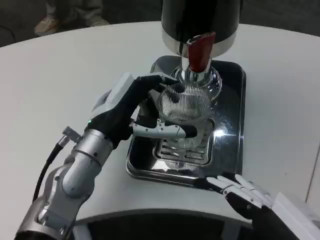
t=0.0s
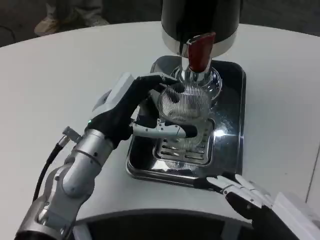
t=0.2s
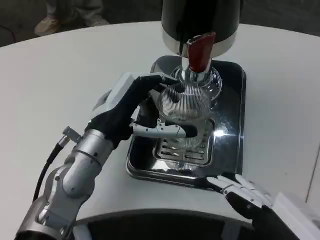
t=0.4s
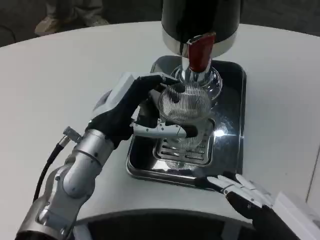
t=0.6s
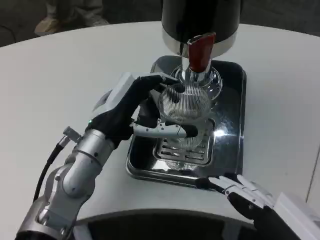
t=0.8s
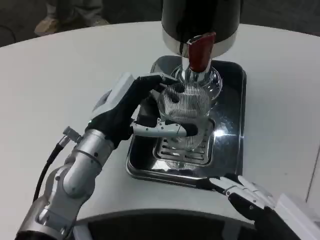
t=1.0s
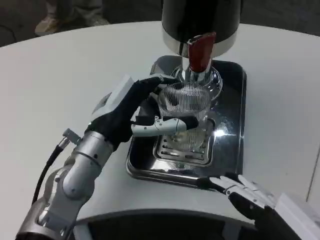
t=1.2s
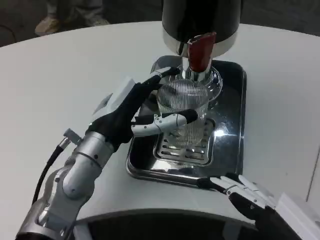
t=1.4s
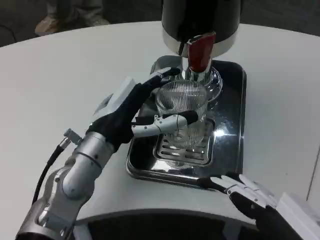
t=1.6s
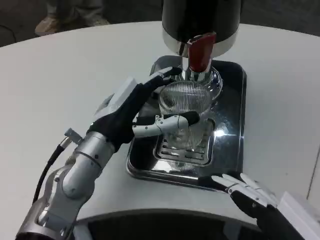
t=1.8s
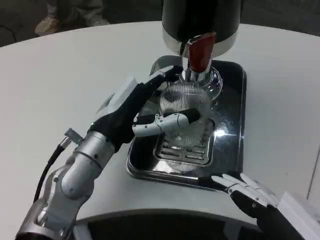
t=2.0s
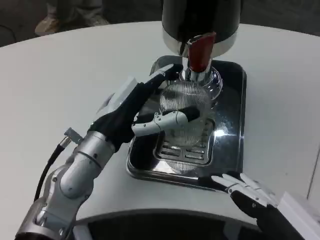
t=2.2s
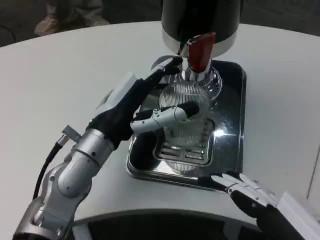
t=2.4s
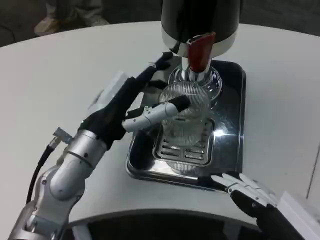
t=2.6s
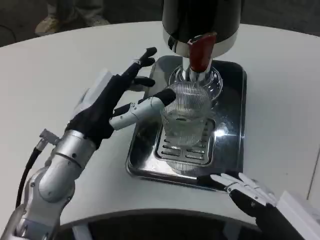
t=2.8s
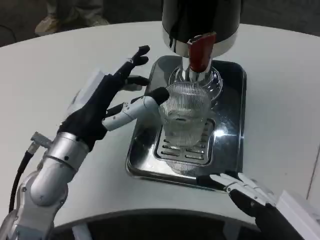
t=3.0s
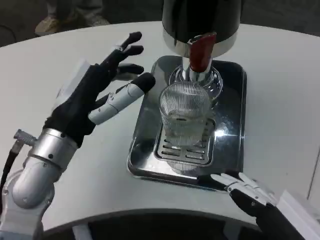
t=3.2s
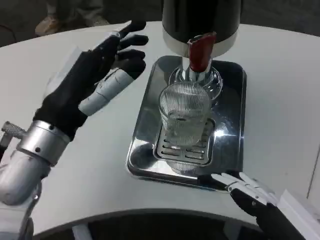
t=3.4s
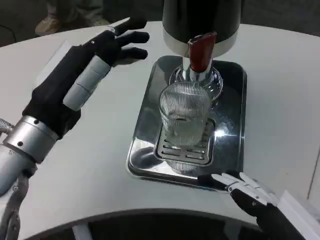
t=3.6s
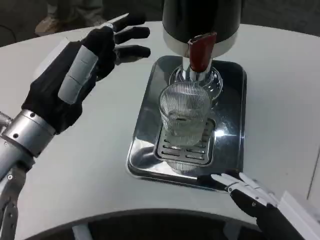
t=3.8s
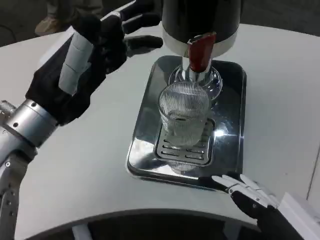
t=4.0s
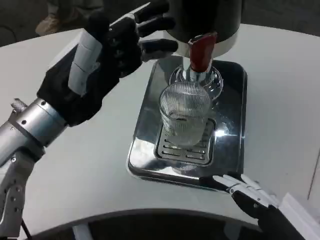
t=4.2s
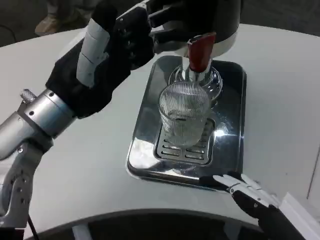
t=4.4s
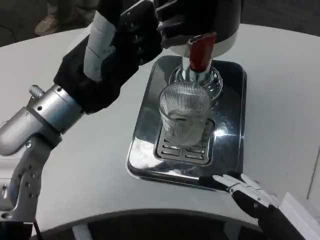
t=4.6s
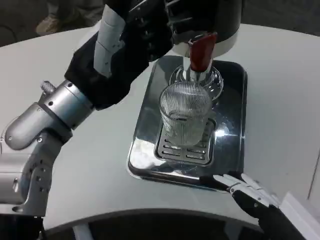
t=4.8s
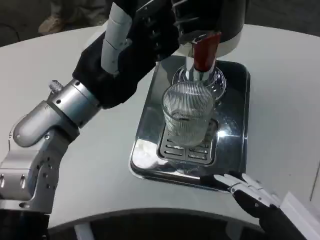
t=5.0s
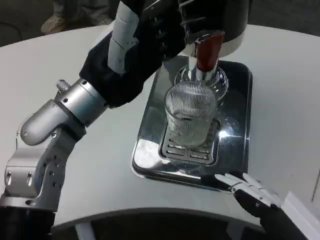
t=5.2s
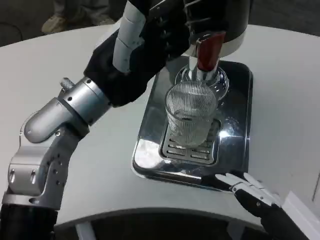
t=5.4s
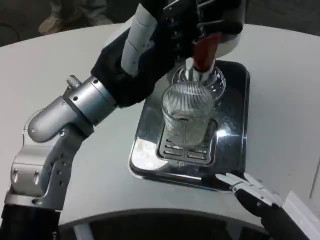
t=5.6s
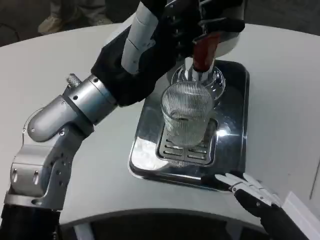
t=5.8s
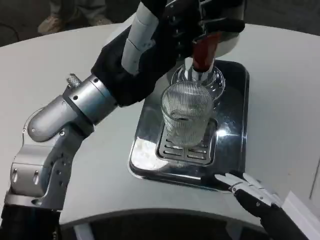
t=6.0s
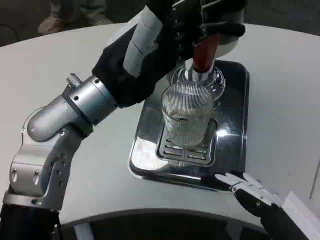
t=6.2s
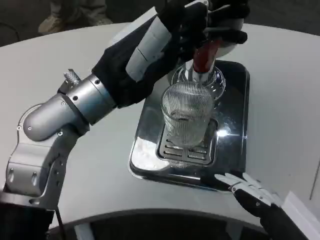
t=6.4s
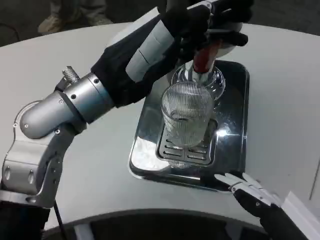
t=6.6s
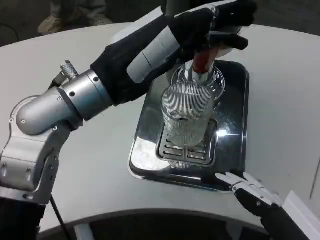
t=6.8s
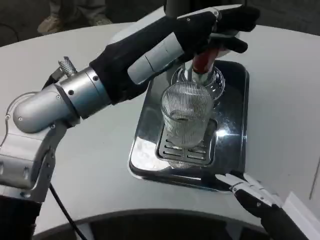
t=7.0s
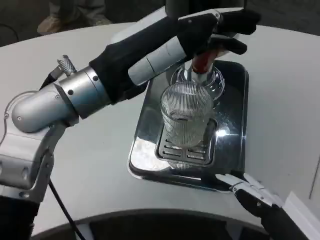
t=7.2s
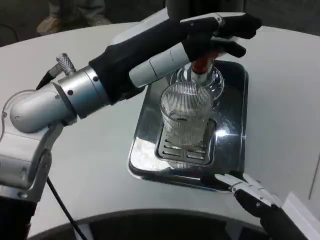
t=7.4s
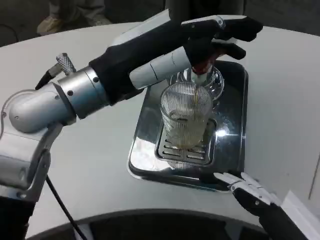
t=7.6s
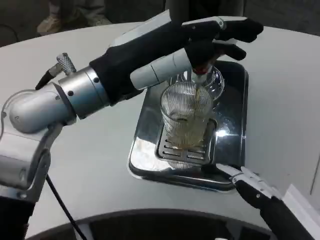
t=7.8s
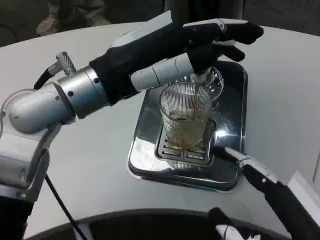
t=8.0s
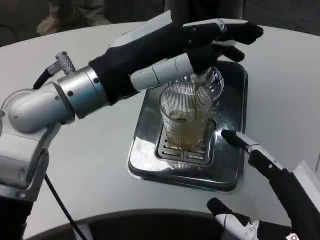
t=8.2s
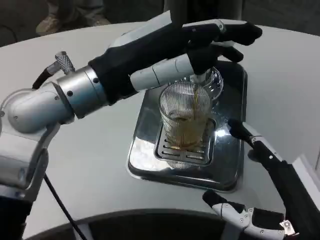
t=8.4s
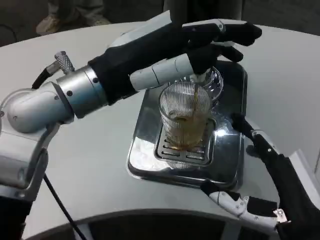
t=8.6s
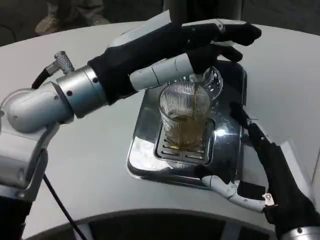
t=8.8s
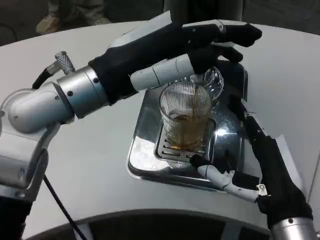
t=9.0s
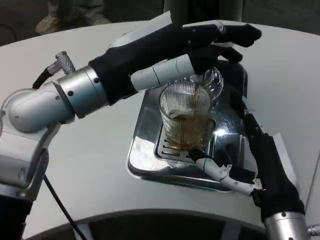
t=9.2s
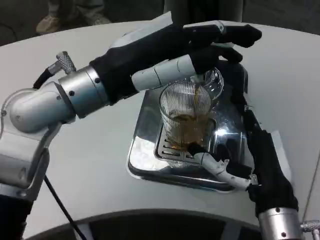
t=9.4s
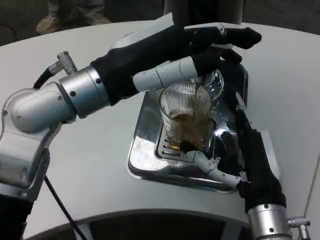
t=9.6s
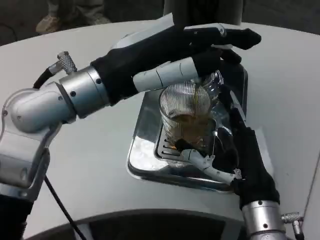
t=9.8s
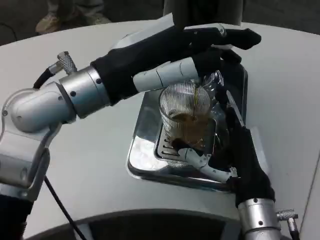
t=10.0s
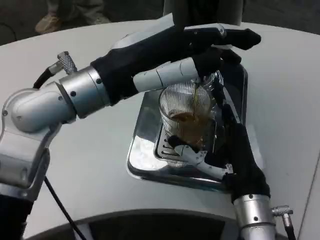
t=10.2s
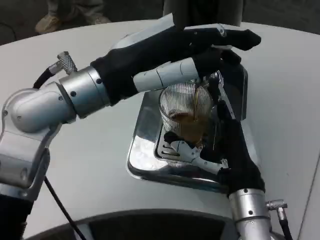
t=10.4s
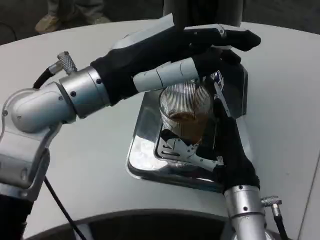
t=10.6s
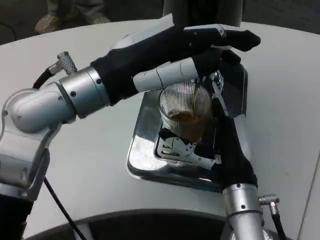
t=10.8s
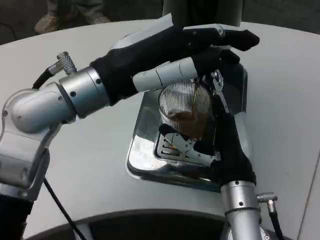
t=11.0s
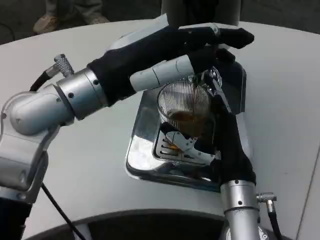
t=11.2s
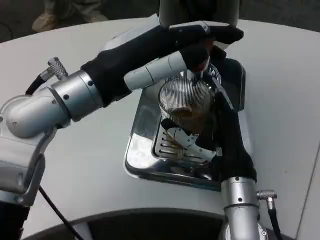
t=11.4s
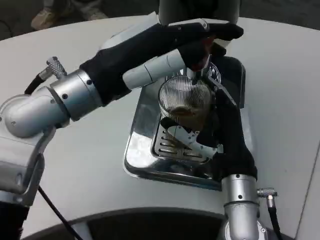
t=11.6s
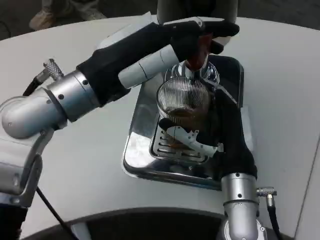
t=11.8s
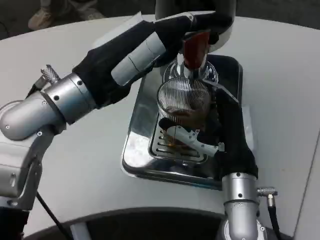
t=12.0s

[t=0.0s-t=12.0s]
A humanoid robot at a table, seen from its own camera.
Task of the whole recording: Grasp the cup under the faucet to collect the drink, then remove the cup.
t=0.0s to t=1.6s: The two hands keep their place.
t=3.0s to t=4.4s: The left hand travels upward by some 5 cm.
t=7.6s to t=9.0s: The right hand is displaced forward by approximately 10 cm.
t=9.0s to t=10.4s: The right hand heads forward, covering some 5 cm.

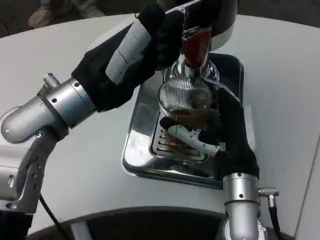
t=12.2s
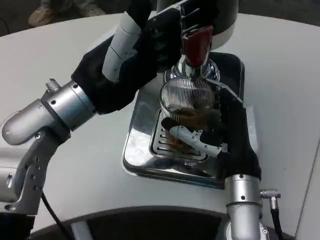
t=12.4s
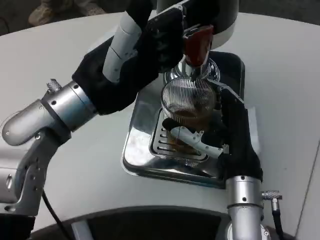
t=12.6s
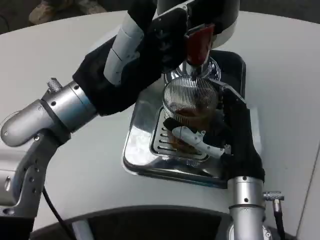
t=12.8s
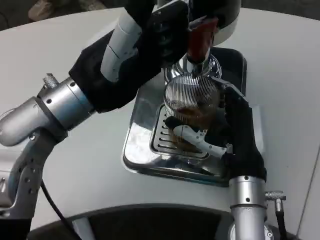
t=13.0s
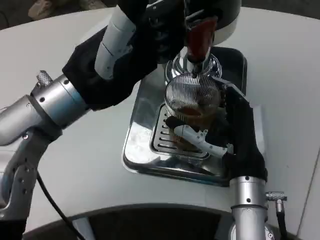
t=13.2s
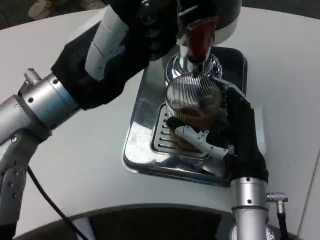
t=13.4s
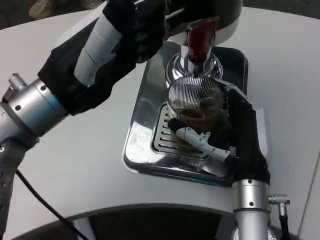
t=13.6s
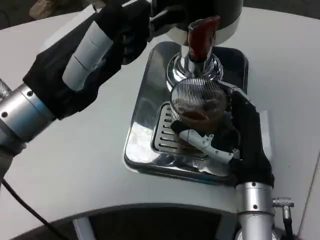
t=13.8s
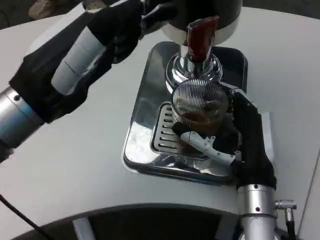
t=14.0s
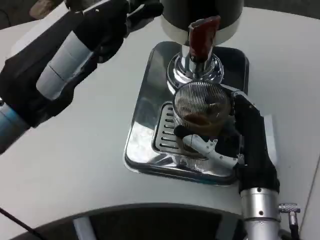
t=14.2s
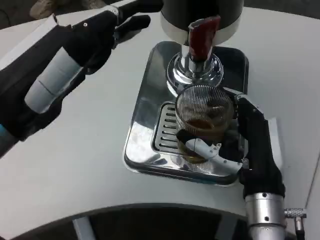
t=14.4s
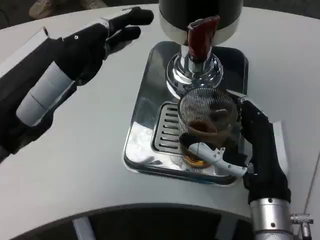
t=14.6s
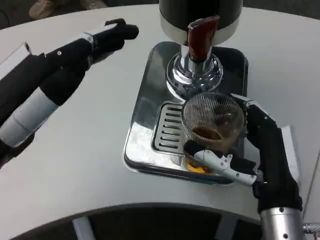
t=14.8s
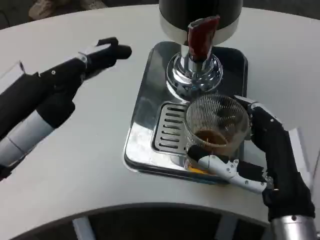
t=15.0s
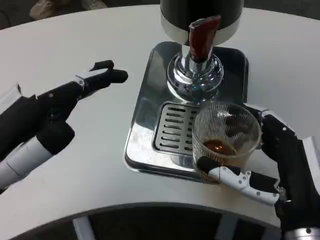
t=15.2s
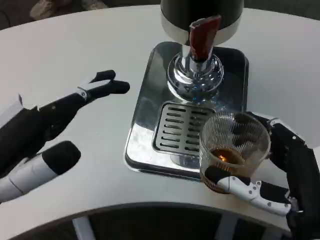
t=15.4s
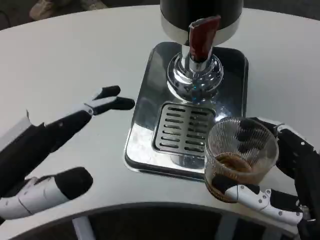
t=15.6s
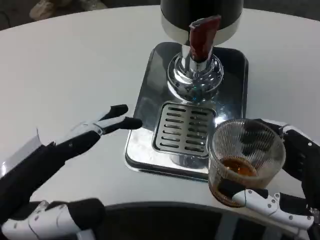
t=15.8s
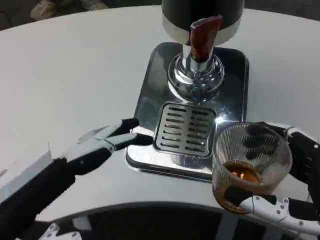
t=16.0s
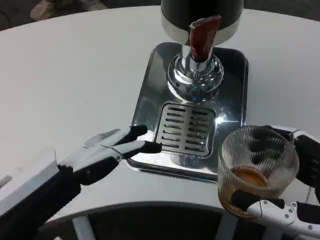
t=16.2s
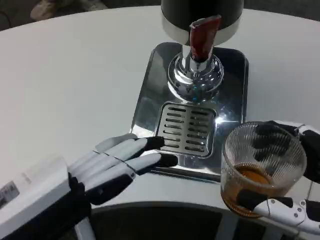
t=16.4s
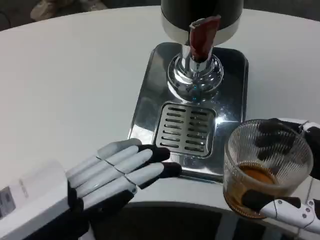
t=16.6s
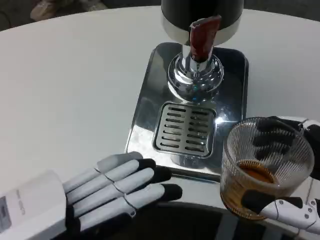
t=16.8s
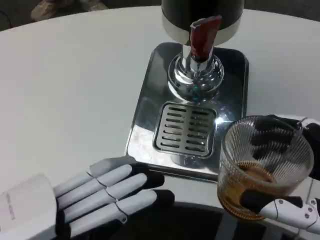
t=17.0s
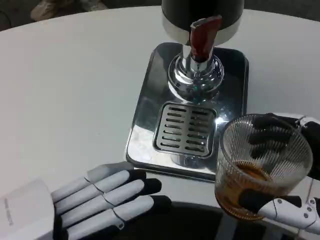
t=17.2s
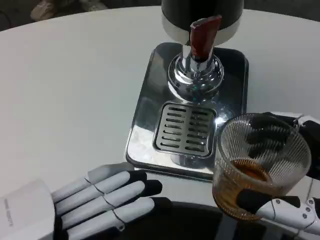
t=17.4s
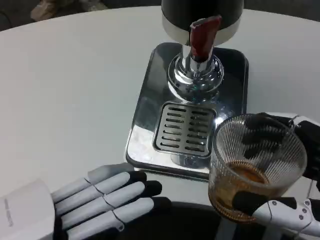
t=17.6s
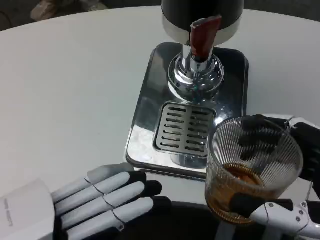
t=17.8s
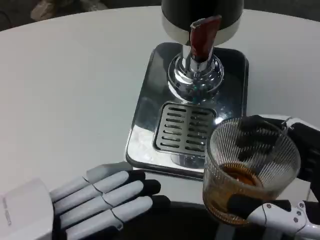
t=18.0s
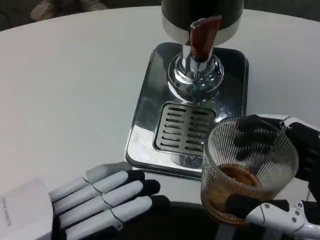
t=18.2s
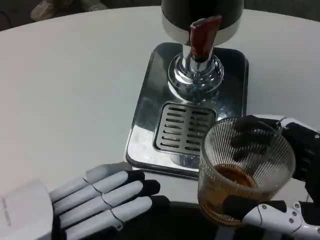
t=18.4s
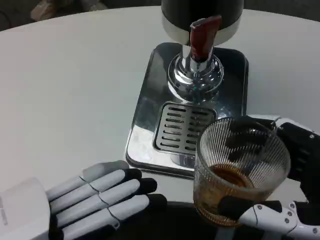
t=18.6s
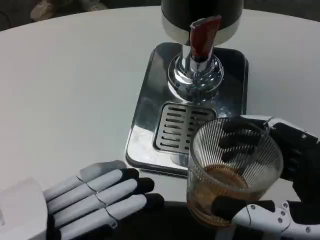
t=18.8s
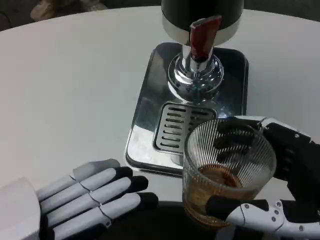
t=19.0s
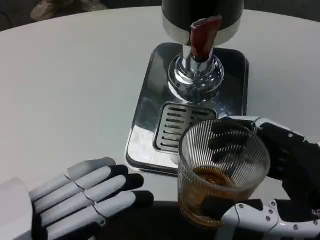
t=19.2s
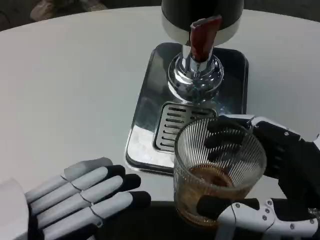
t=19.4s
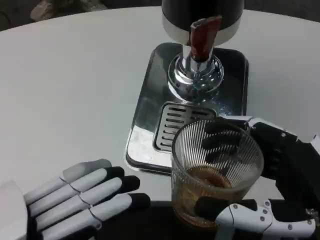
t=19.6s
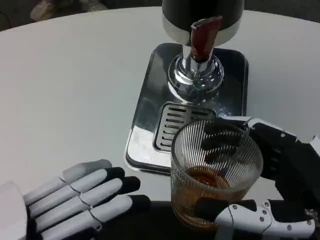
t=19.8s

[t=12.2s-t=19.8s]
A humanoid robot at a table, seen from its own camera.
Task of the whole recording: Grasp the cup under the faucet to collect the drink, then remove the cup.
t=12.2s to t=13.8s: The left hand is displaced backward by some 5 cm.
t=13.8s to t=15.2s: The left hand travels backward and to the left by some 10 cm; the right hand travels backward by approximately 10 cm.
t=15.2s to t=16.8s: The left hand moves backward, some 5 cm. Meanwhile the right hand shifts some 10 cm backward, to the right and upward.
t=16.8s to t=18.2s: The hands make only small movements.

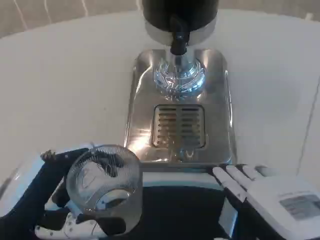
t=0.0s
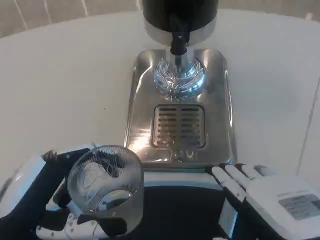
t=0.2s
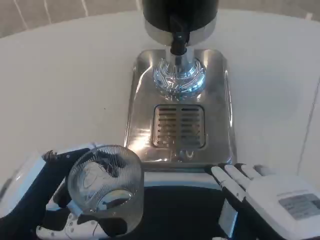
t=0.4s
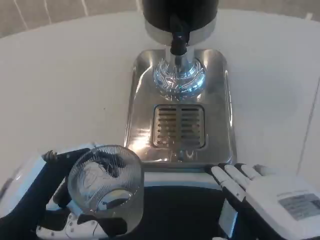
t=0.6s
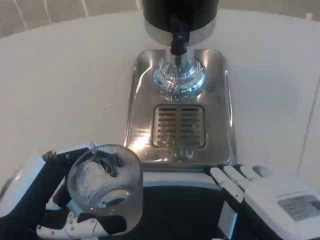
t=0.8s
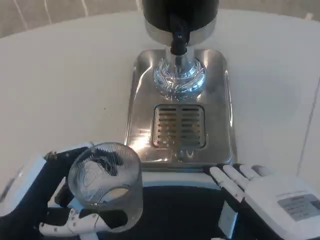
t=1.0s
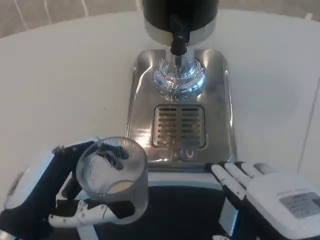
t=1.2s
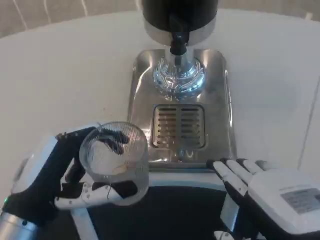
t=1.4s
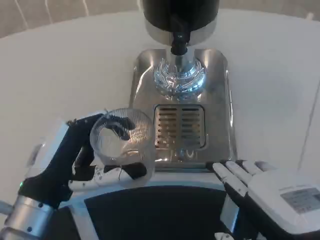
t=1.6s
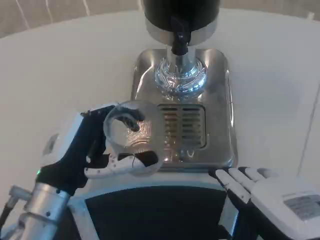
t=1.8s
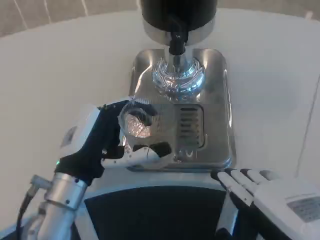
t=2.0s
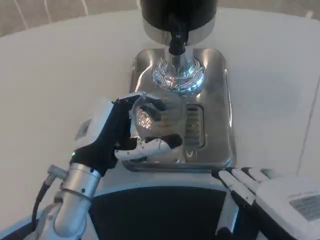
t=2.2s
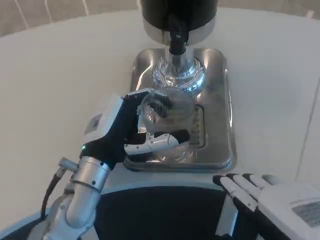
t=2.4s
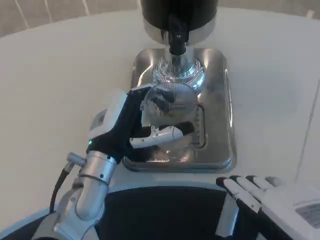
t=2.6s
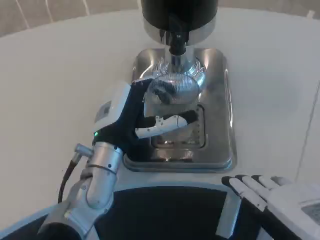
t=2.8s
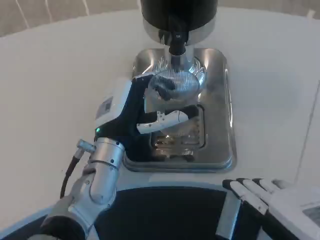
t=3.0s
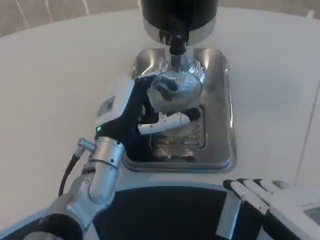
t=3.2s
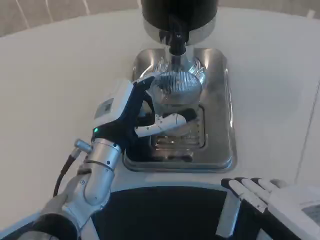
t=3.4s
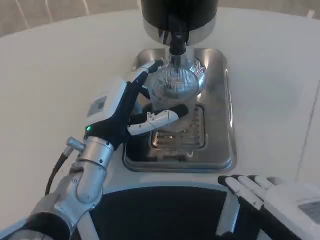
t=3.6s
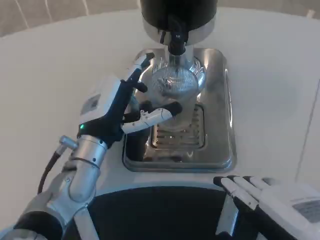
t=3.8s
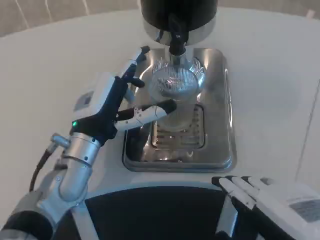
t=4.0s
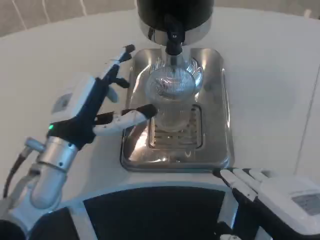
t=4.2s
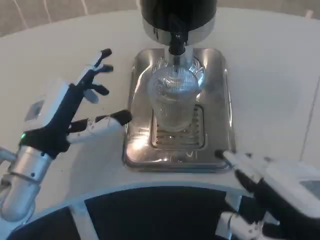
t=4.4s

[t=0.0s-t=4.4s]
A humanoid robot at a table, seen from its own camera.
Task of the whole recording: Grasp the cup under the faucet to collect the drink, then remove the cup.
t=0.0s to t=1.4s: There are only small adjustments of the hands.
t=1.4s to t=3.0s: The left hand moves forward and to the right, approximately 15 cm.
t=3.0s to t=4.4s: The left hand travels to the left by roughly 10 cm.
